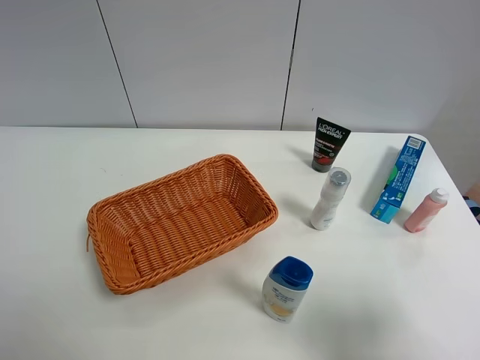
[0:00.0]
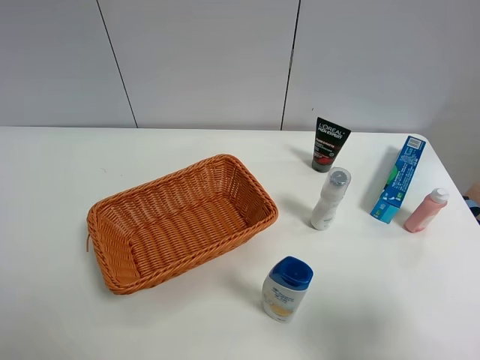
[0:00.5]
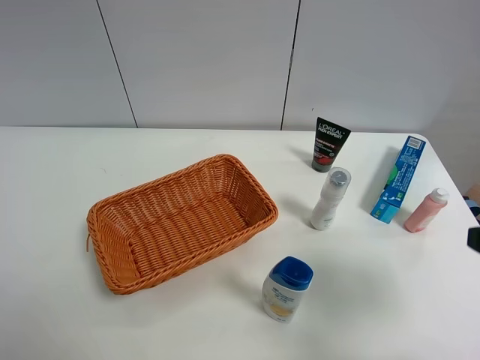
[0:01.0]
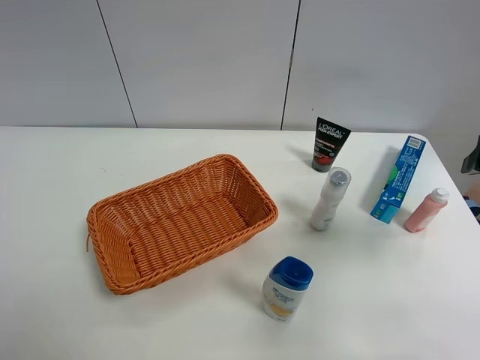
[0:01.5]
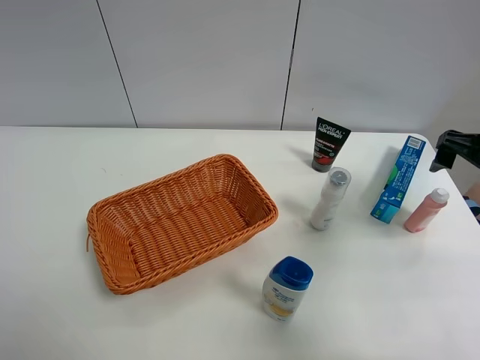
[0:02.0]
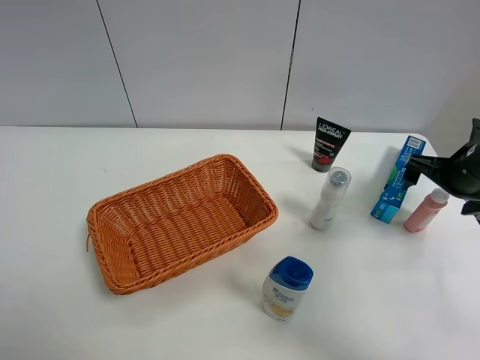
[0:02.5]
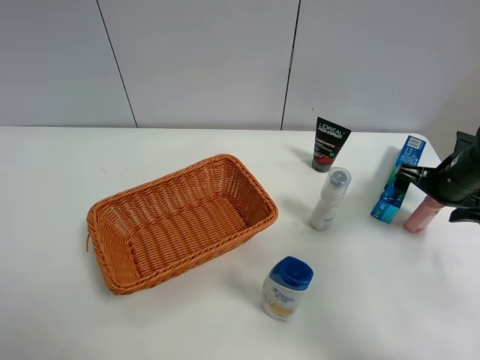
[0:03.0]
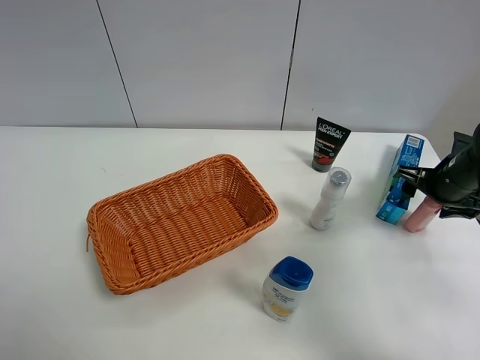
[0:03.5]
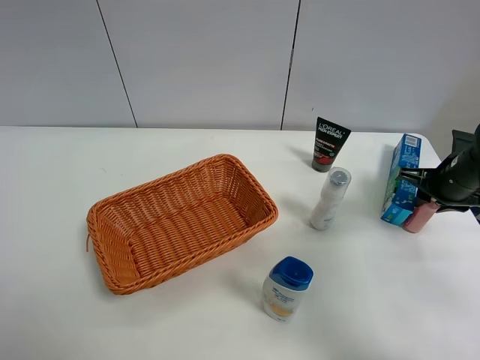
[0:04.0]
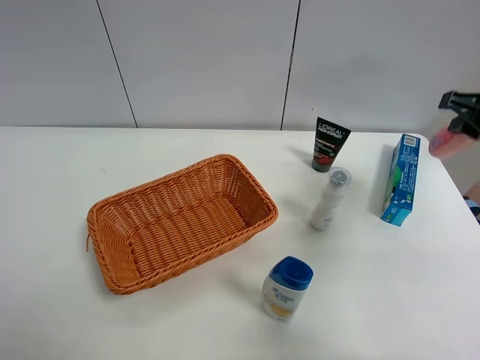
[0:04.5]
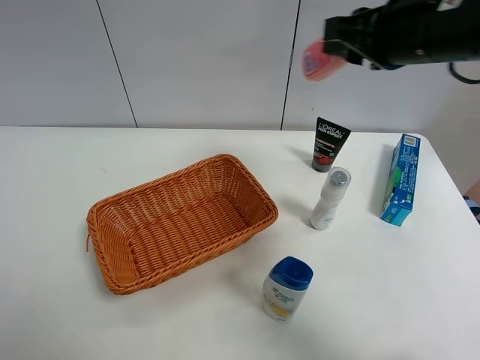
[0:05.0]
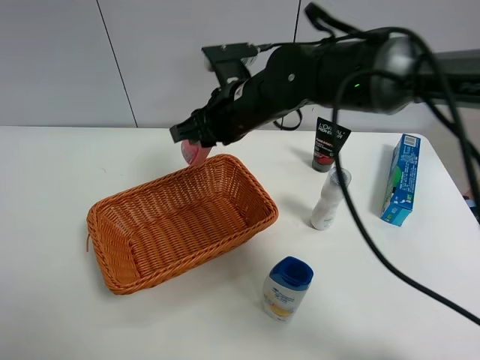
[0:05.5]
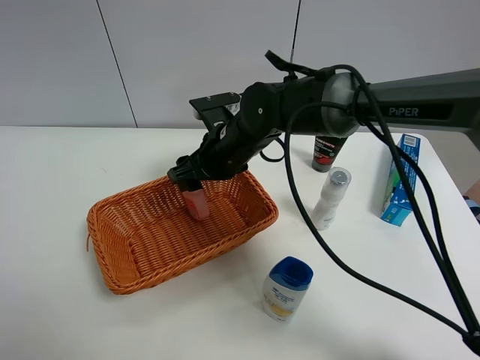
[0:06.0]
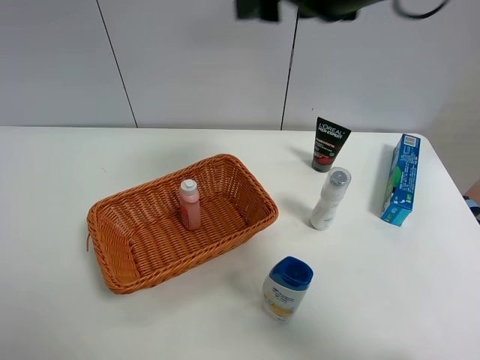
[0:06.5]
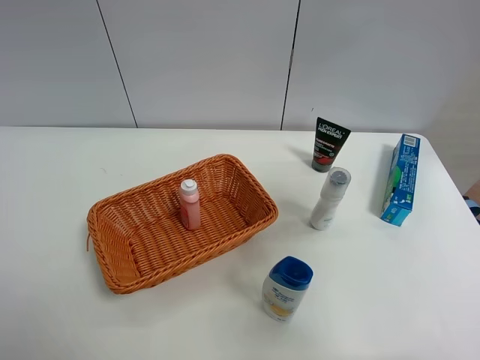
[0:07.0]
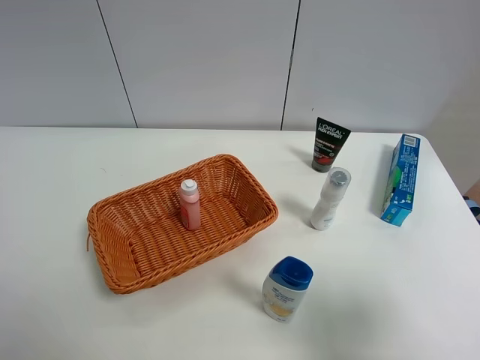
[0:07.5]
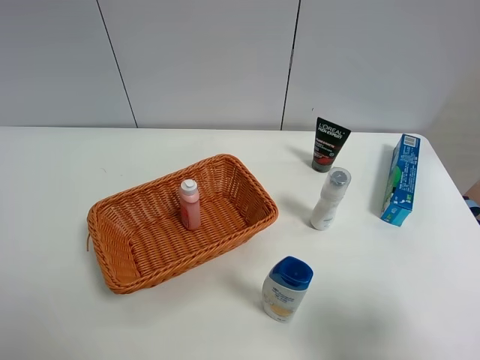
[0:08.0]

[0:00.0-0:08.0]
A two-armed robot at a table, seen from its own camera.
Task of the whole recording: Place the object closest to the toothpaste in the basket.
Step, 0:00.0 to 0:03.5: Grasp the pink laundry detergent with right gripper.
Step, 0:04.0 to 0:06.0: Place the pink laundry detergent in the basket with right gripper.
0:00.0 to 0:02.0: The right gripper moves forward, approximately 25 cm.
0:02.0 to 0:04.0: The right gripper travels downward by roughly 10 cm, and closes its fingers.
0:04.0 to 0:06.0: The right gripper travels to the left by about 35 cm, and opens.
0:06.0 to 0:08.0: The right gripper is displaced backward and to the right by about 40 cm.
